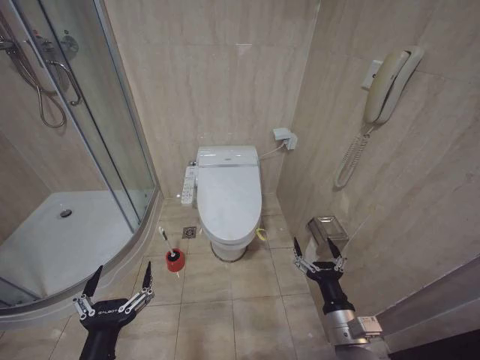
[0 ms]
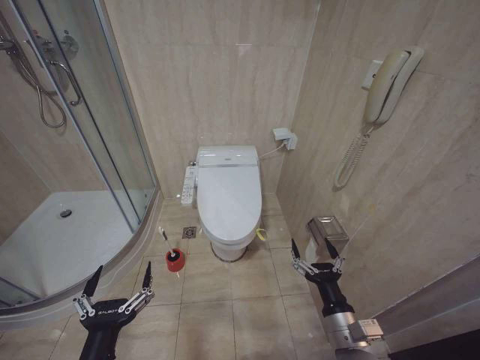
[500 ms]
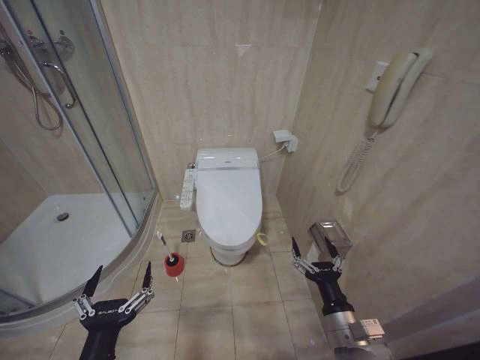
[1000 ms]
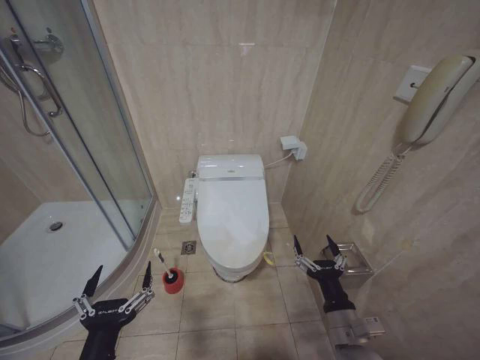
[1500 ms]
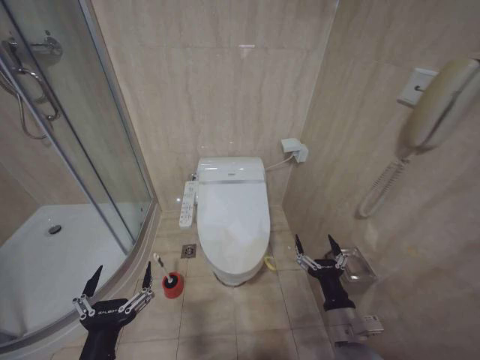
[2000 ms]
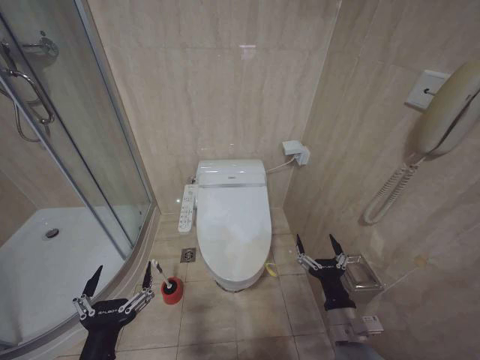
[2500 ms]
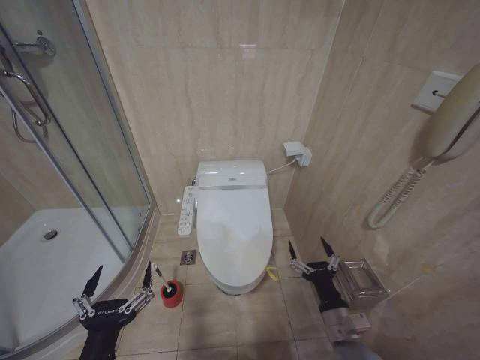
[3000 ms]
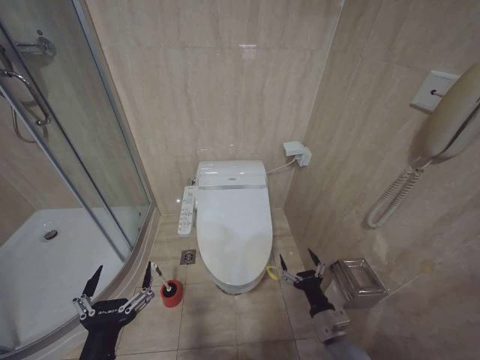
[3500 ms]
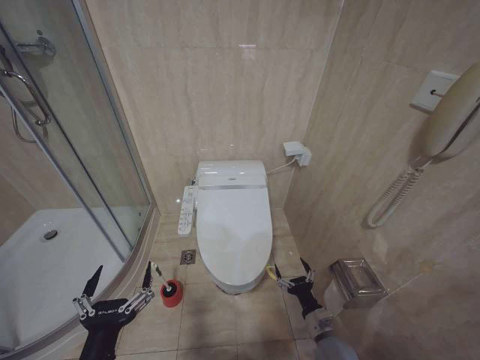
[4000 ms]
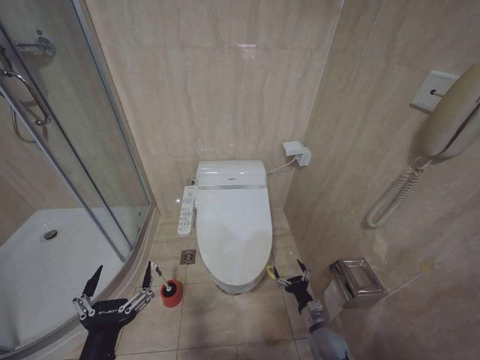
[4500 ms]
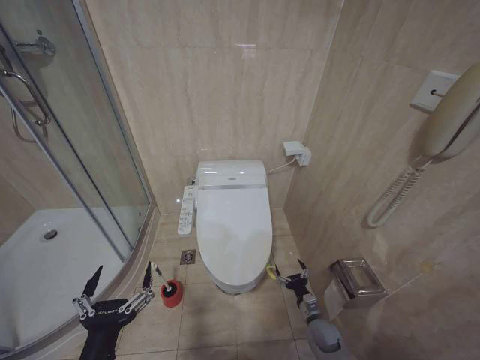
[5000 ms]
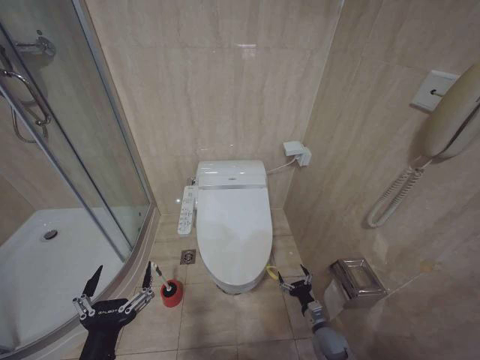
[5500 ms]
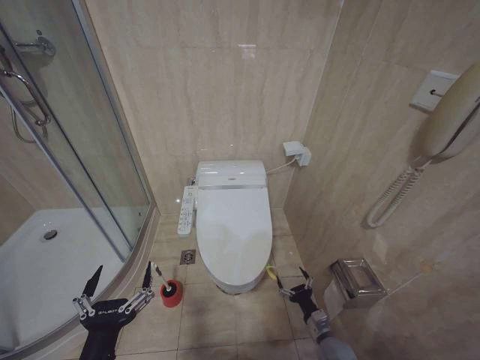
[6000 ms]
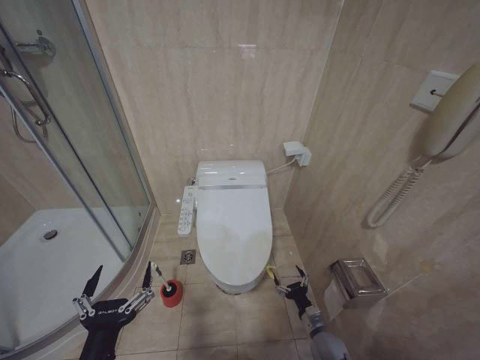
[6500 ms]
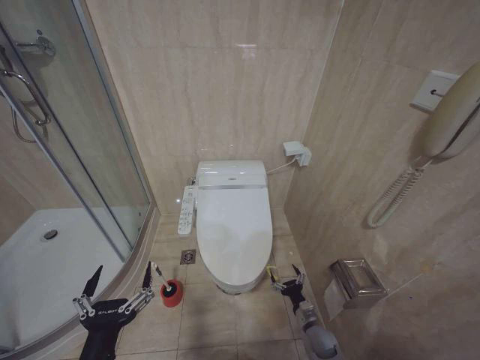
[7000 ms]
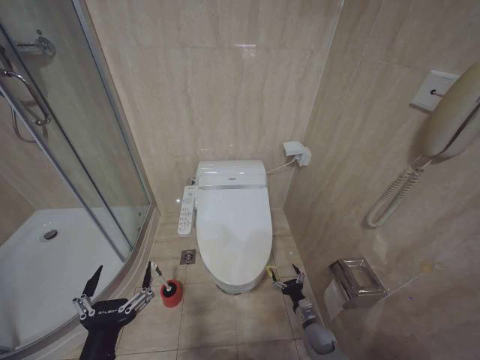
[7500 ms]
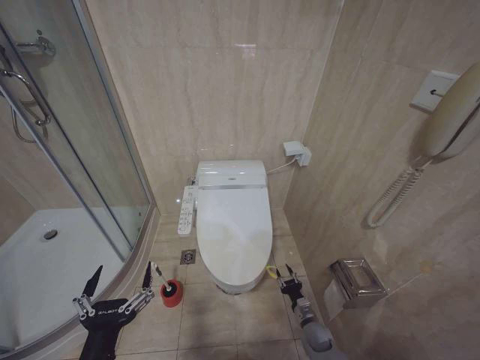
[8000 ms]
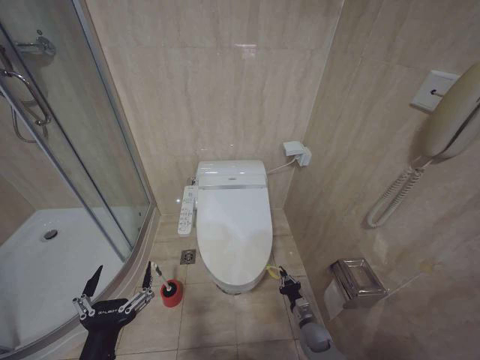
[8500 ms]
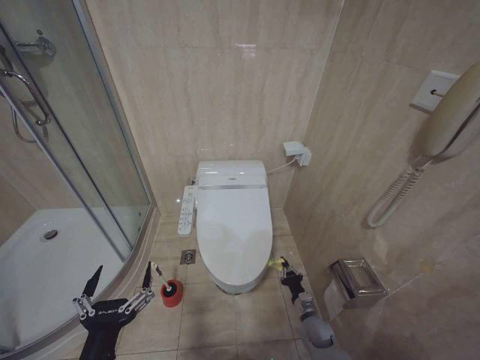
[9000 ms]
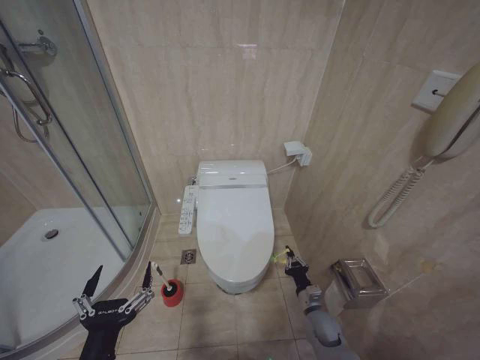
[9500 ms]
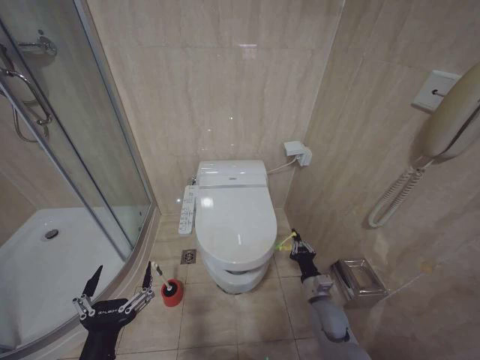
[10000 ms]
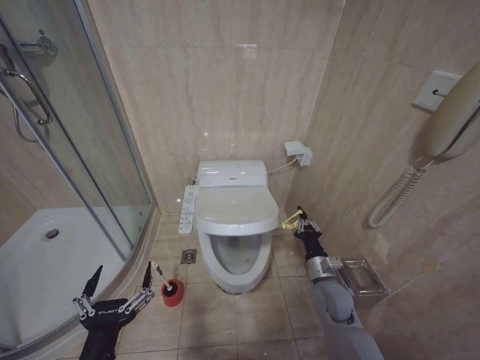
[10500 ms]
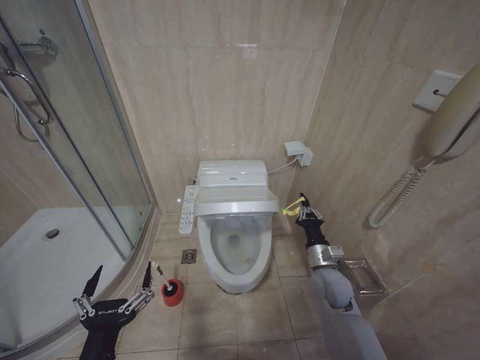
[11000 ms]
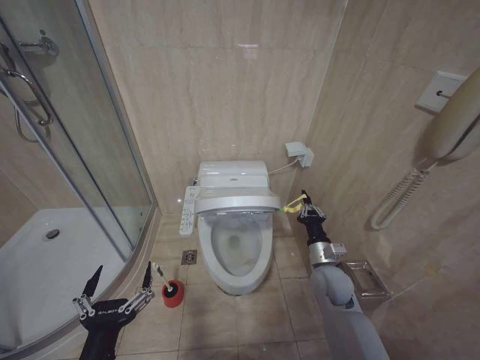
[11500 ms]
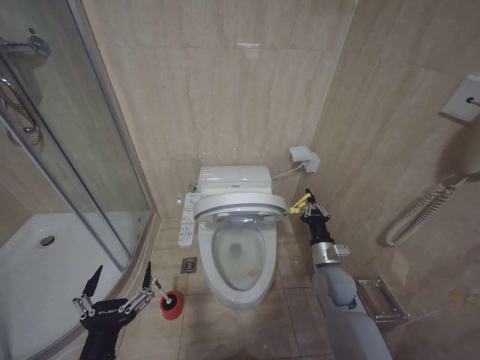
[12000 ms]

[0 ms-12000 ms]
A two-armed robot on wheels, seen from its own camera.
Task of the whole recording: Open the toilet lid, clean the toilet bowl with a toilet brush, close the toilet lid, and flush.
2000 ms to 4000 ms: The right gripper heads downward, covering approximately 15 cm.
6000 ms to 8000 ms: The right gripper heads downward, covering approximately 5 cm.
8000 ms to 10000 ms: The right gripper moves upward, roughly 15 cm, and closes up.
10000 ms to 12000 ms: The right gripper is displaced upward by about 10 cm.

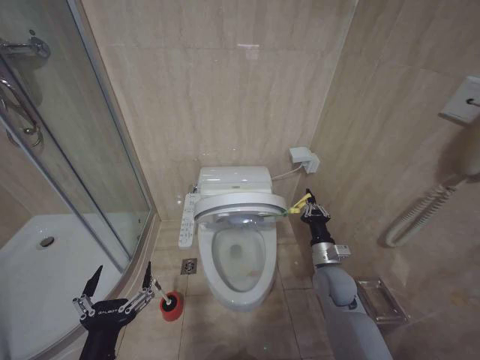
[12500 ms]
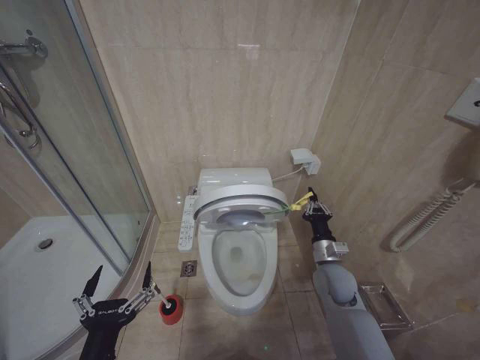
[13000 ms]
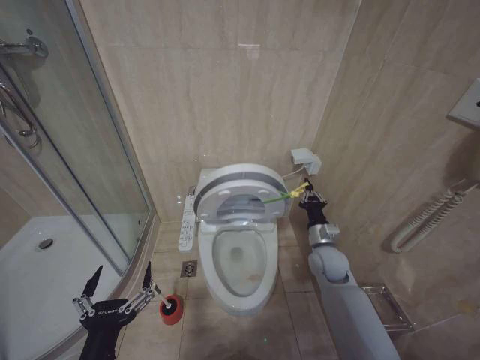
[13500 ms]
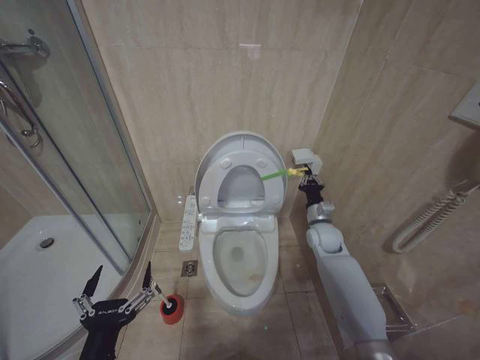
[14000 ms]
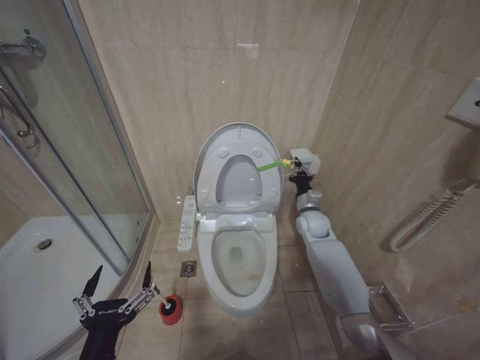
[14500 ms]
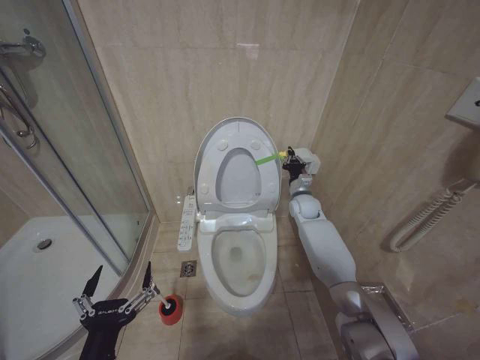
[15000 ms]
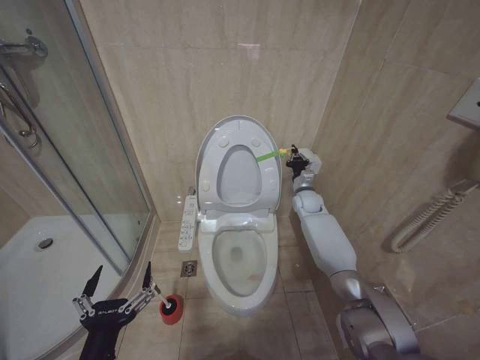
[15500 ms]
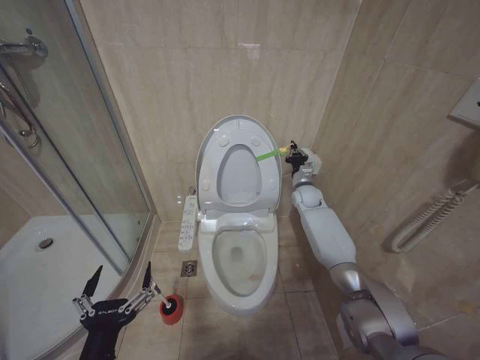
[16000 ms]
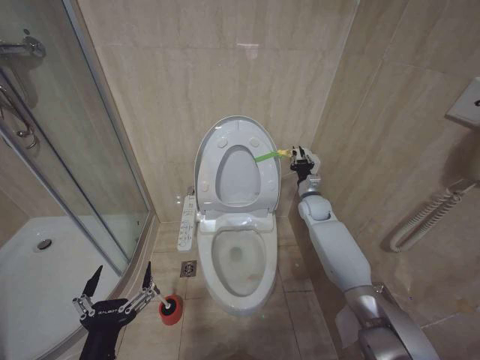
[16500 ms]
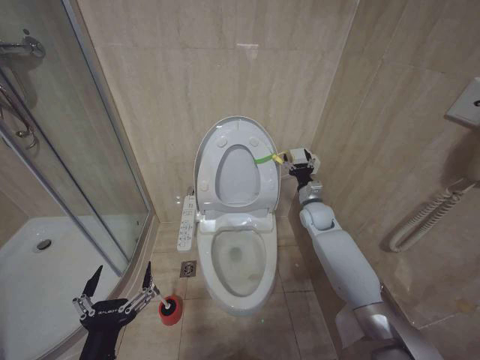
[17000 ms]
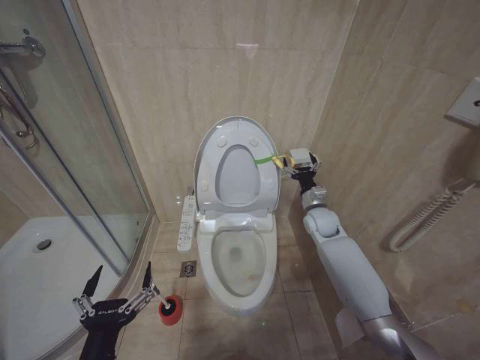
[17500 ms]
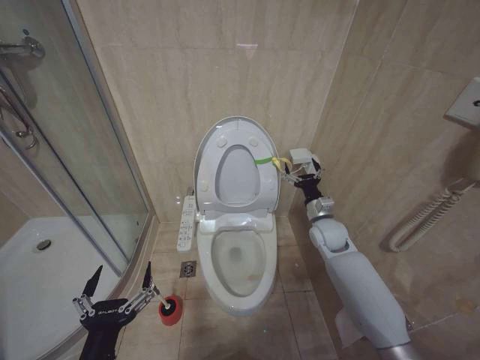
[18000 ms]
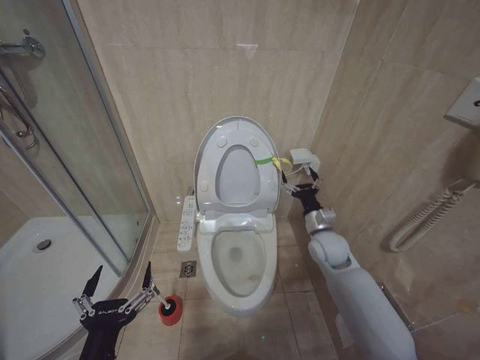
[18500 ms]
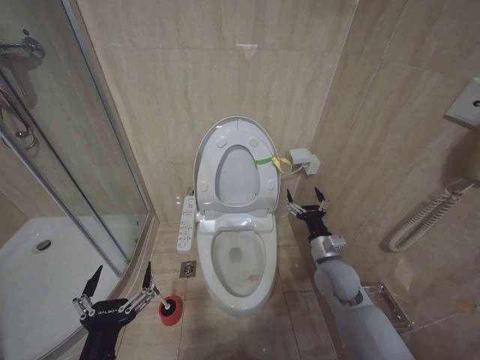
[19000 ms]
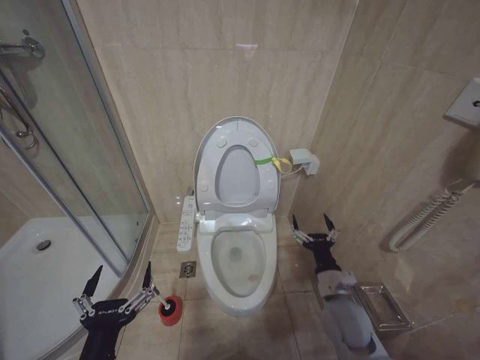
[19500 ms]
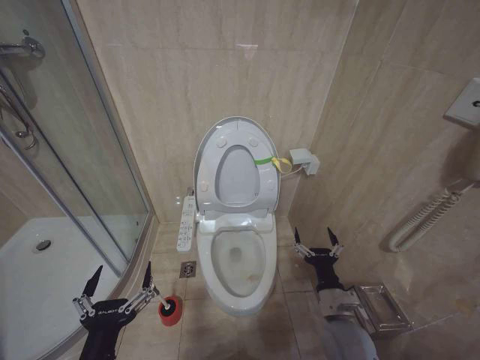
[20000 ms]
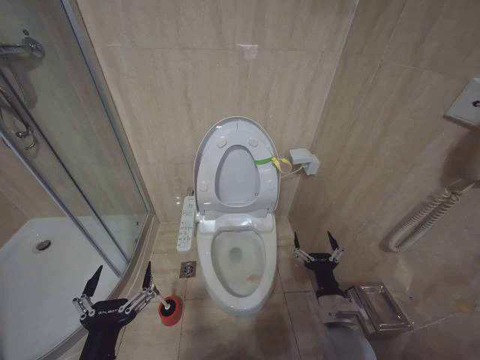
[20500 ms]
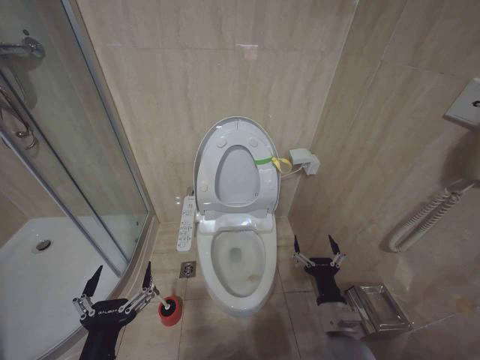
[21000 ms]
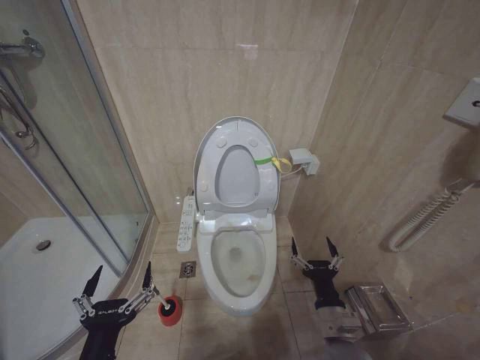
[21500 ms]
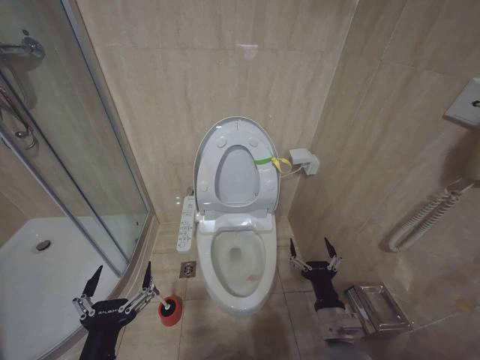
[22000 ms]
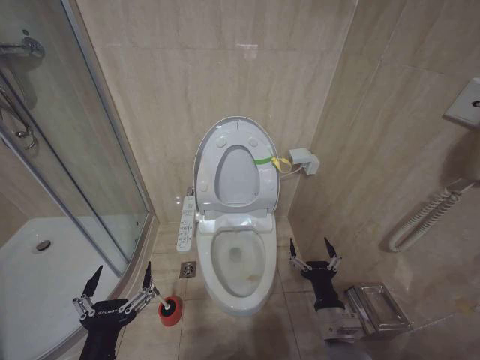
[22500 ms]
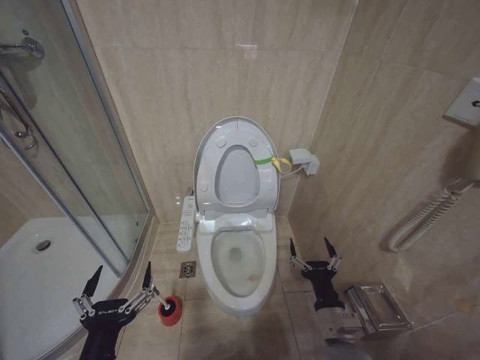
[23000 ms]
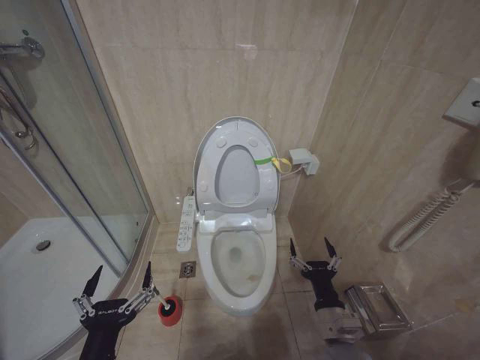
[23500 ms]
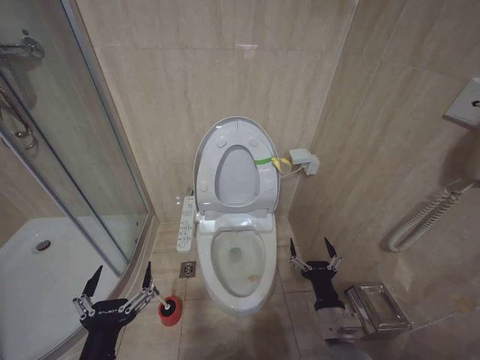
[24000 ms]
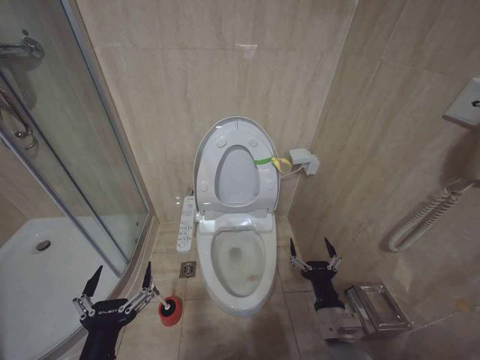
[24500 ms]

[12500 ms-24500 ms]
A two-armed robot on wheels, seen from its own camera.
Task of the whole recording: Open the toilet lid, clean the toilet bowl with a toilet brush, close the toilet lid, and flush.
12500 ms to 14500 ms: The right gripper goes approximately 15 cm forward.
14500 ms to 16500 ms: The right gripper is displaced forward by some 5 cm.
16500 ms to 18500 ms: The right gripper goes about 15 cm backward, and opens its fingers.
18500 ms to 20500 ms: The right gripper shifts approximately 20 cm backward and downward.
20500 ms to 22500 ms: The grippers move only a little.
22500 ms to 24500 ms: Both grippers stay about where they are.

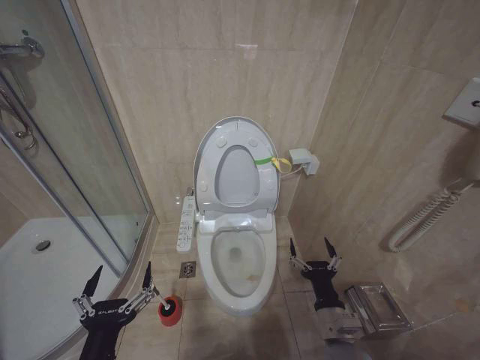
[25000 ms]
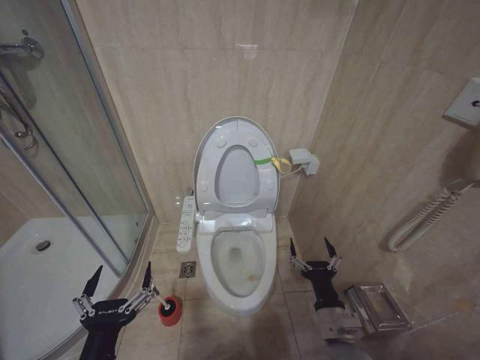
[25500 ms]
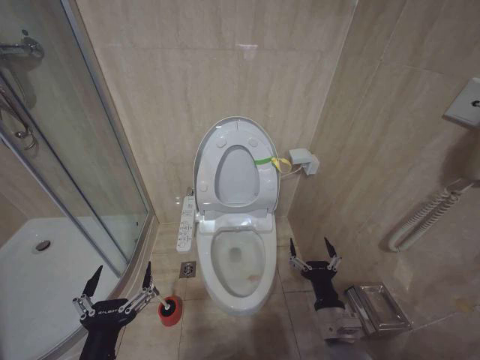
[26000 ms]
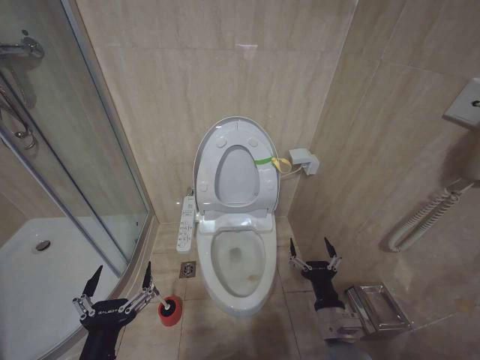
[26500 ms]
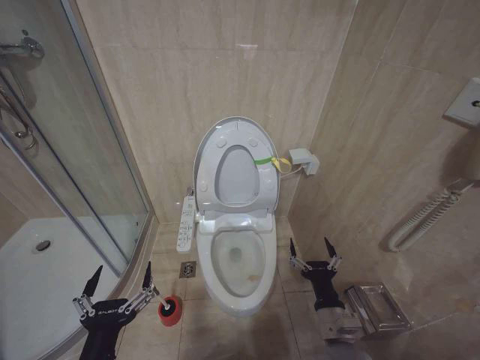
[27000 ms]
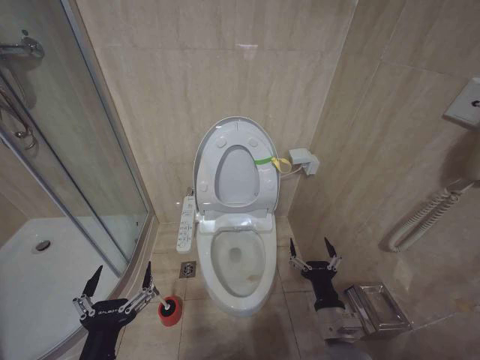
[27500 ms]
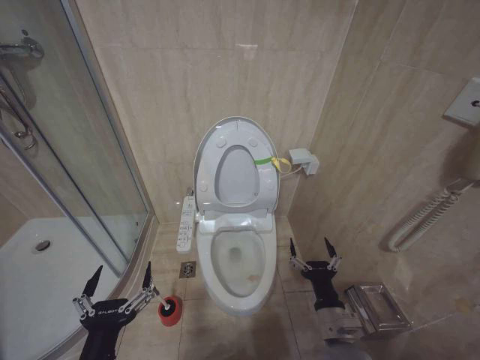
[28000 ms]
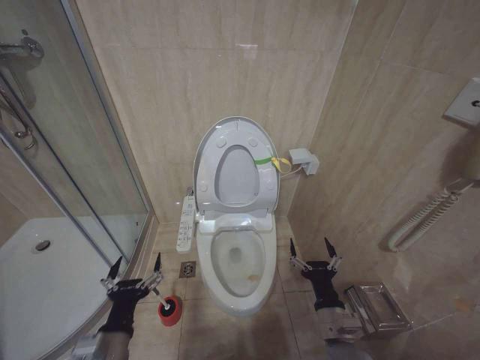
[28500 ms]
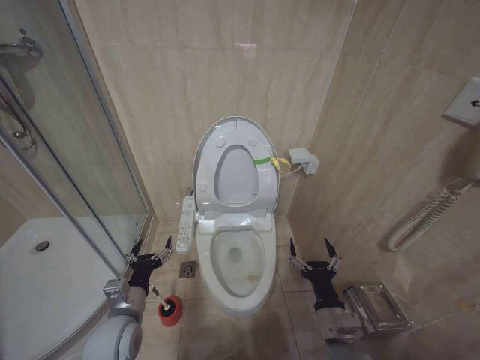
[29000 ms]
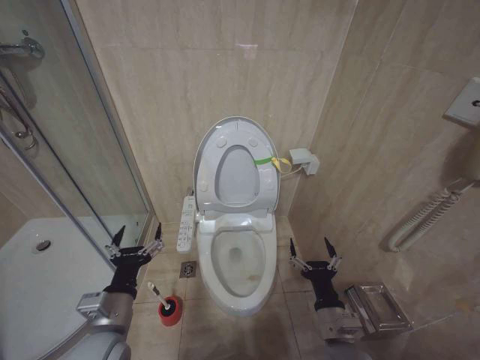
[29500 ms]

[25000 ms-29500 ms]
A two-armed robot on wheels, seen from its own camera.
Task of the whole recording: Open the toilet lid, clean the toilet bowl with a toilet brush, close the toilet lid, and flush.
25000 ms to 27000 ms: The two grippers keep their place.
27000 ms to 29500 ms: The left gripper shifts roughly 15 cm forward.
